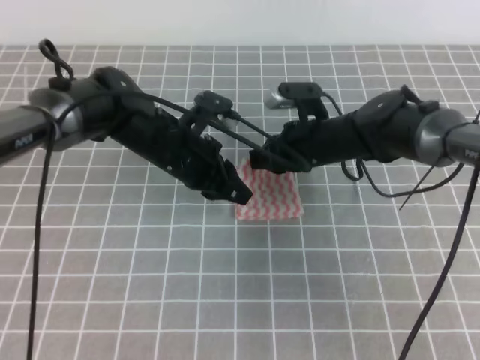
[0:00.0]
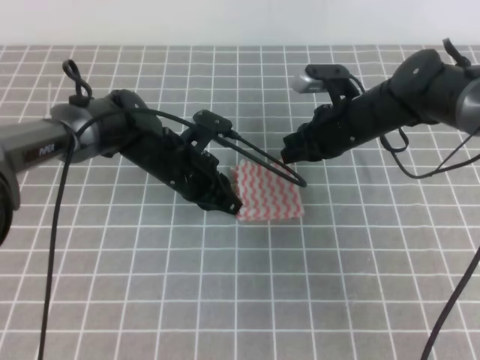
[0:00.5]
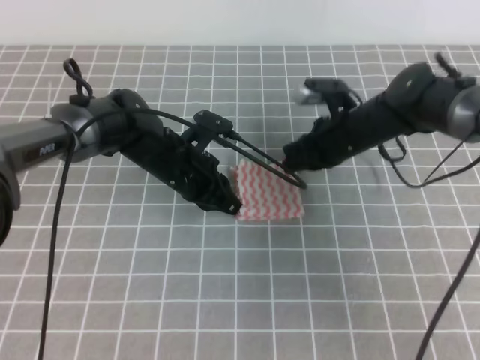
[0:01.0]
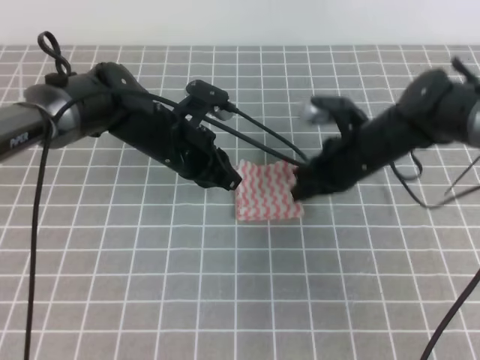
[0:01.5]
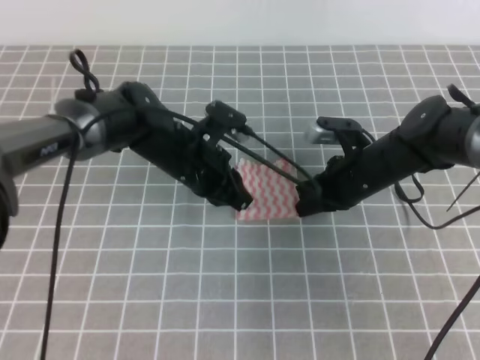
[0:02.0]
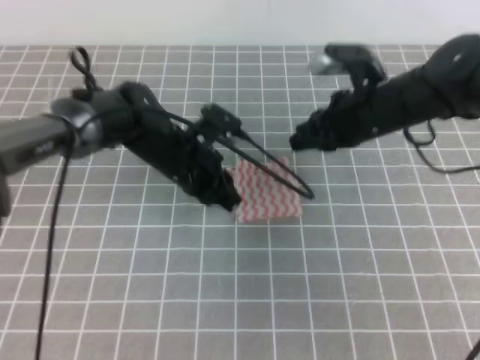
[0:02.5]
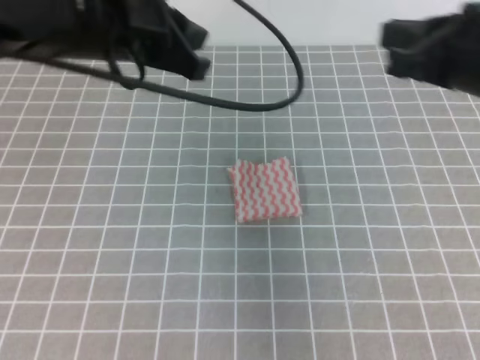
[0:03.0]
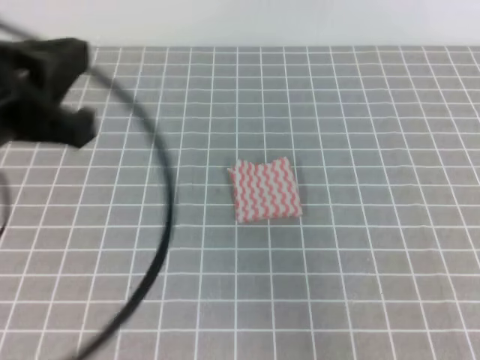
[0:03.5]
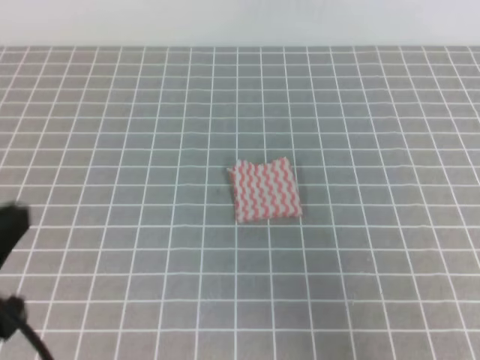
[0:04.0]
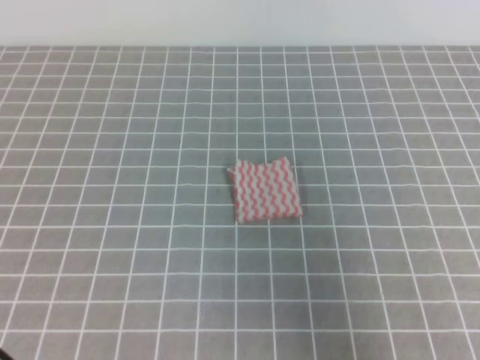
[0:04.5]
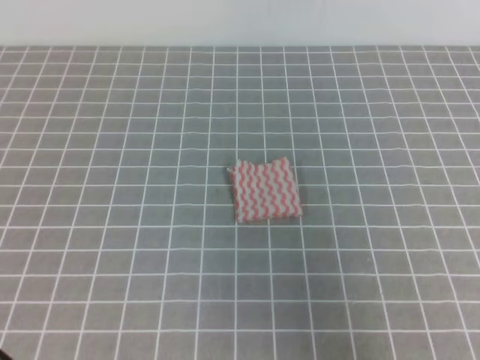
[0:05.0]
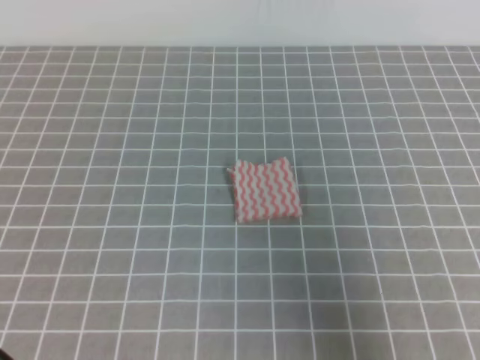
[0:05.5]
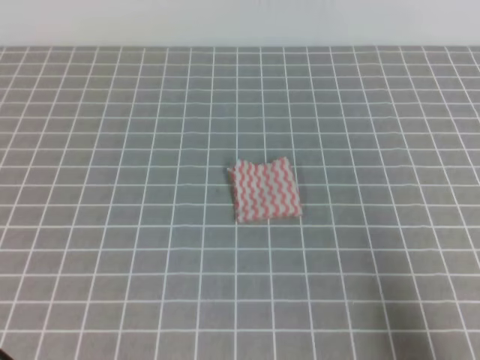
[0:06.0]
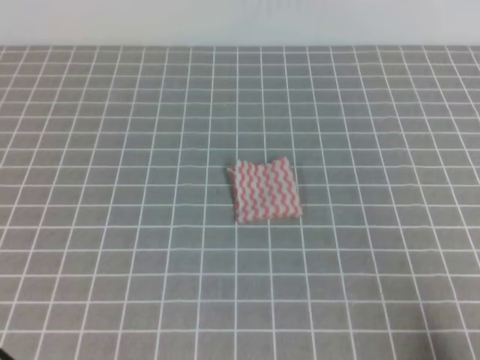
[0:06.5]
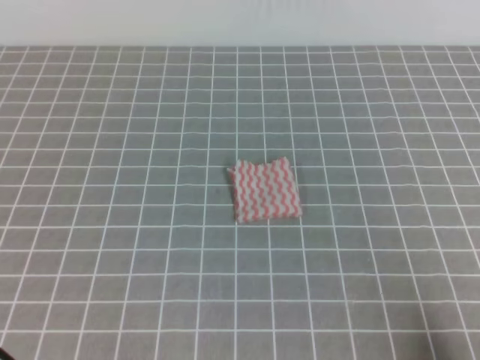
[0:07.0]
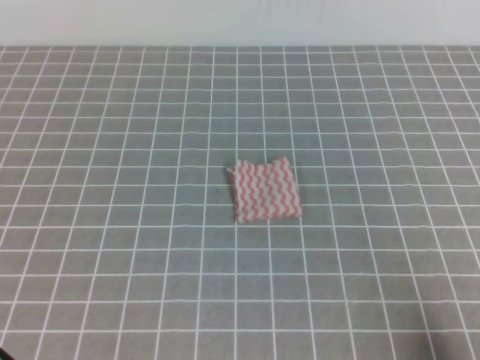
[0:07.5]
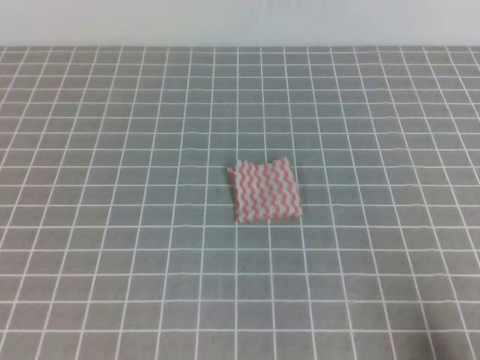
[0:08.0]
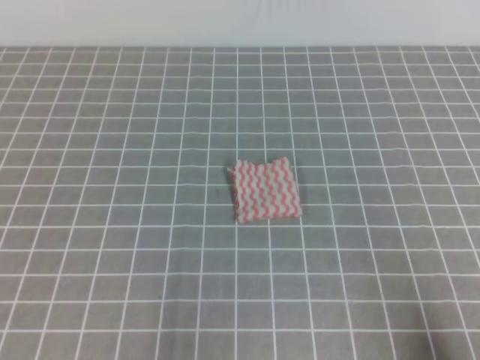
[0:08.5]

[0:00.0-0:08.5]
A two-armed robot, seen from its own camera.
Step, 0:00.0 to 0:08.5: Fold the towel.
0:00.0 to 0:02.0: The right gripper changes place by approximately 5 cm.
0:02.0 to 0:04.0: The right gripper travels backward, upward and to the right by approximately 35 cm. The left gripper is displaced backward, to the left and upward by roughly 35 cm.
0:04.0 to 0:06.5: The left gripper changes place by roughly 5 cm; the right gripper is displaced downward by about 15 cm.

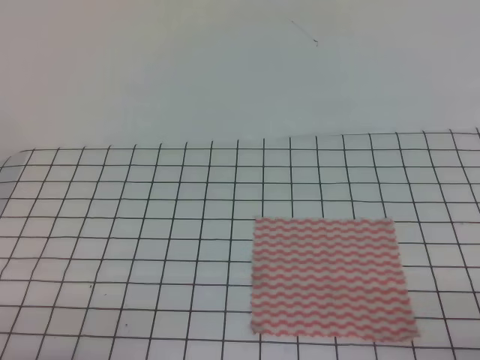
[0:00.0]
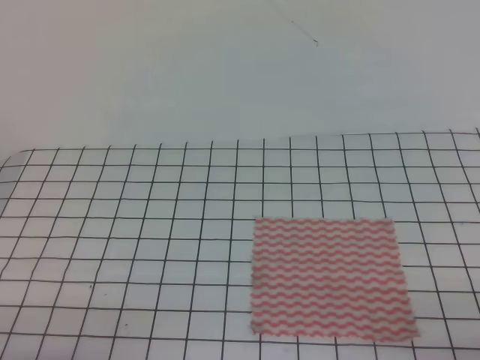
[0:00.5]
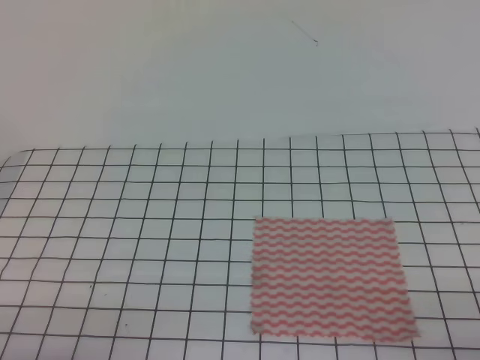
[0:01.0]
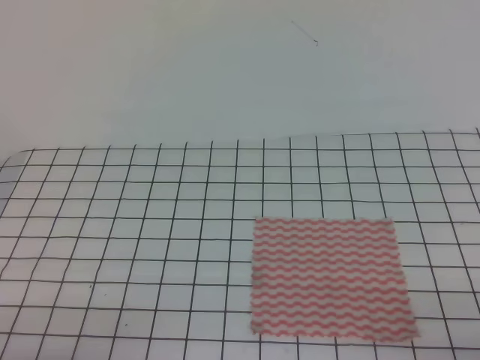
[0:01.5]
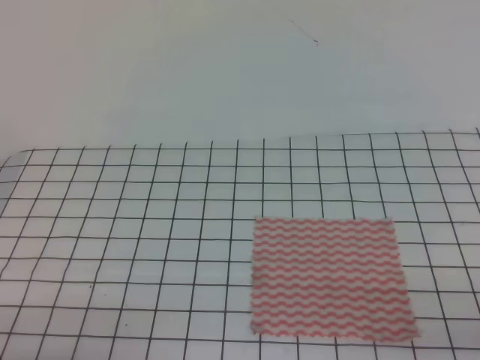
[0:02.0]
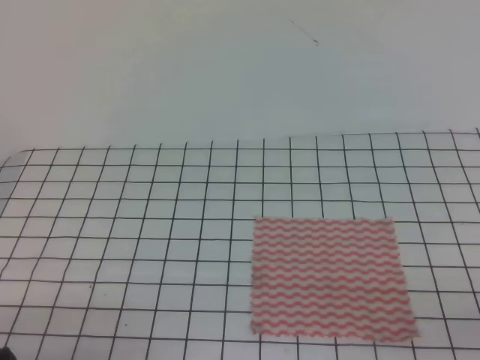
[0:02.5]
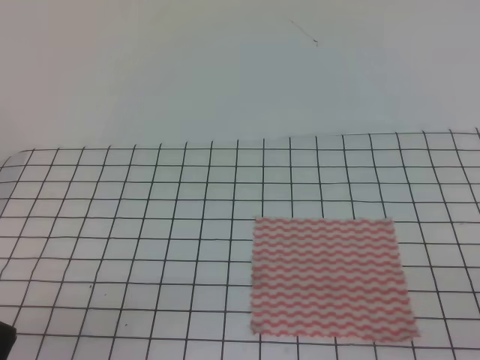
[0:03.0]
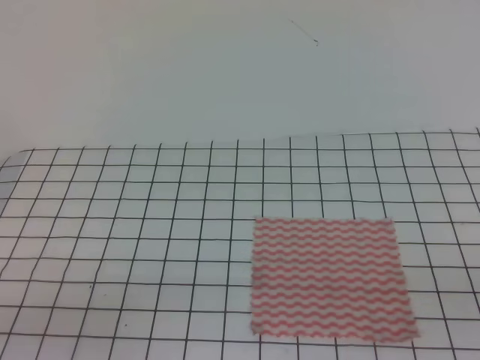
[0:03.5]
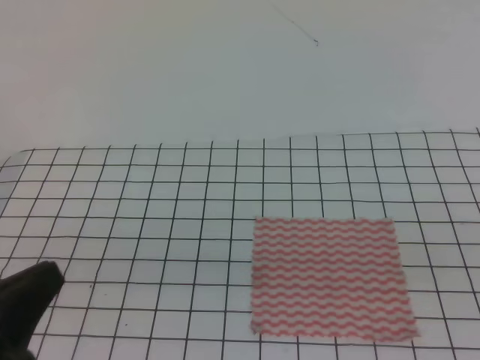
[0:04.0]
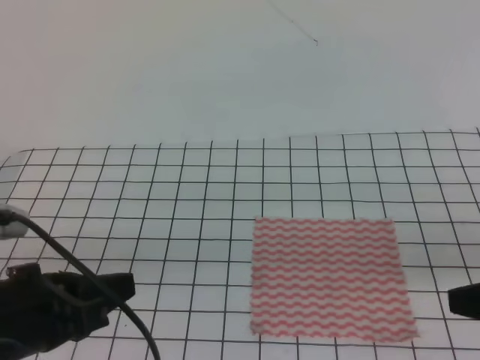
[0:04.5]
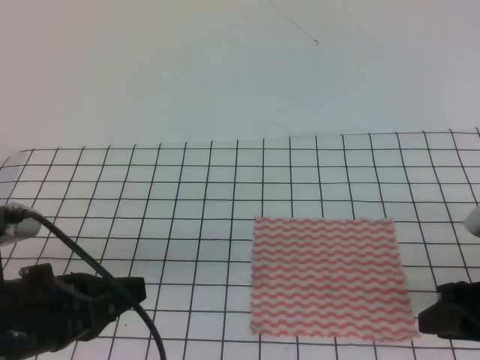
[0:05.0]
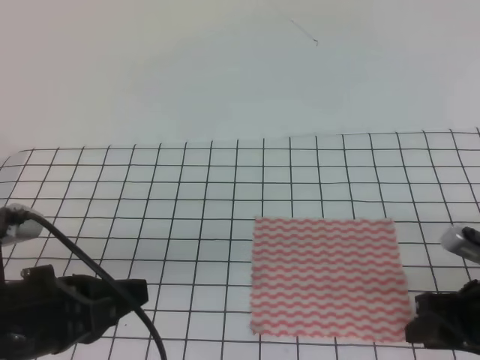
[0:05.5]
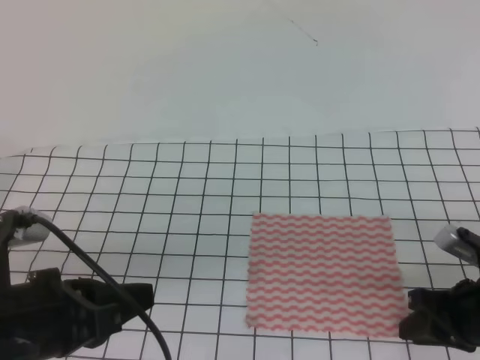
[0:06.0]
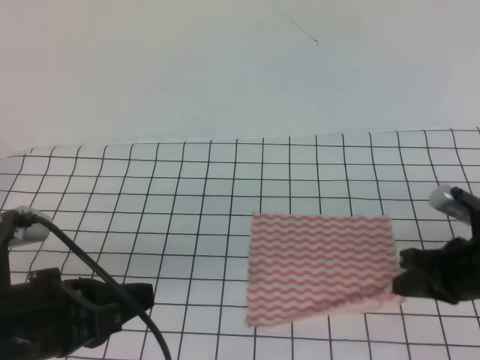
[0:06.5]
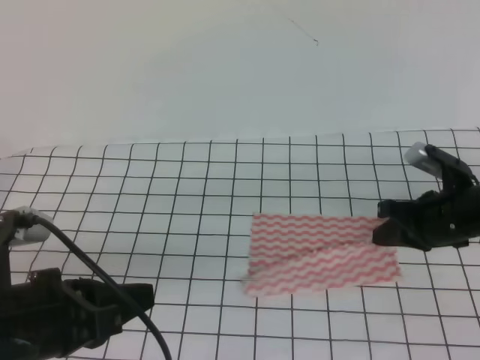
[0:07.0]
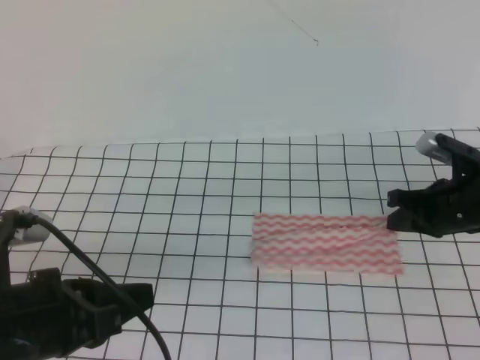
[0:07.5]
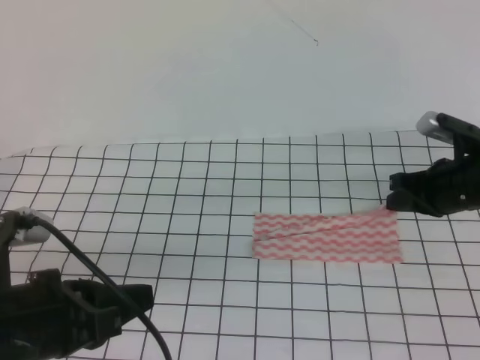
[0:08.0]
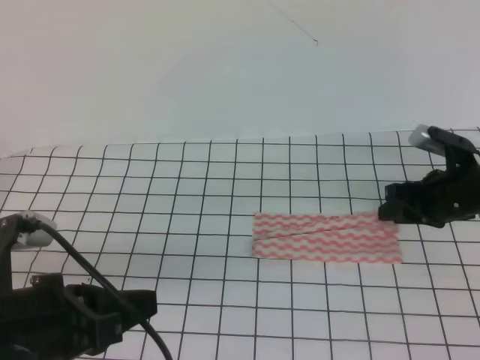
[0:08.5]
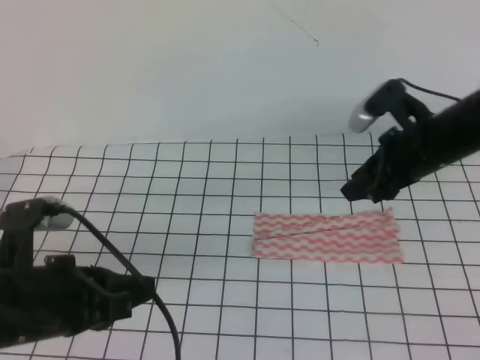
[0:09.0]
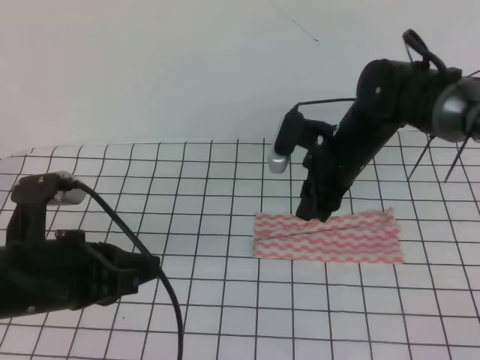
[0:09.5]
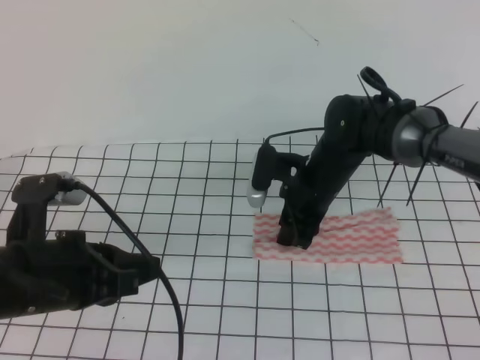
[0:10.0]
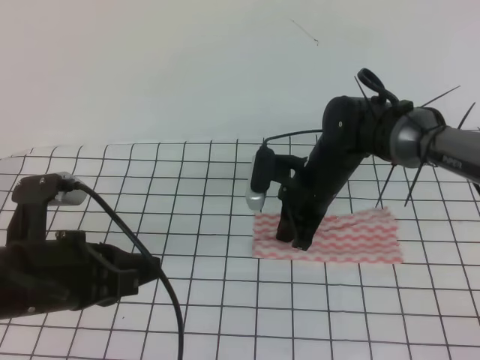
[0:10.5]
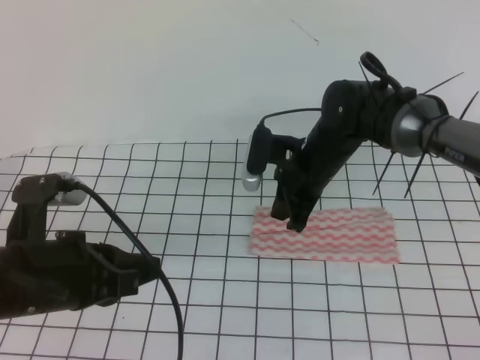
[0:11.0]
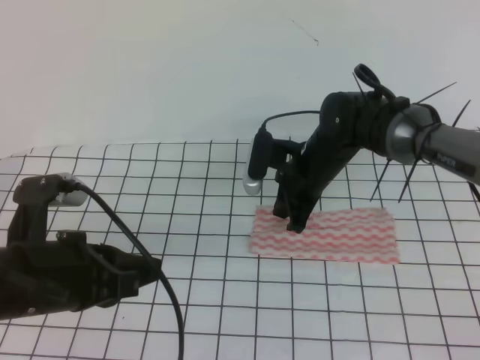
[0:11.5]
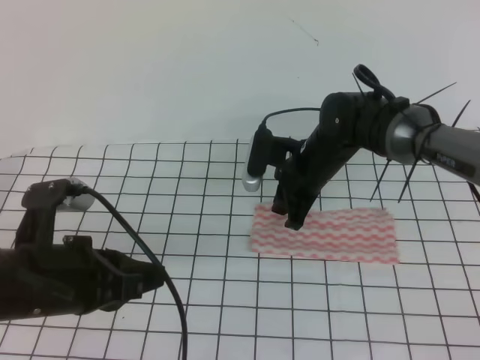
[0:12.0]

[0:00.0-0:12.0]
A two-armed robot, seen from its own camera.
Step, 0:00.0 to 0:07.0: Fold the towel upwards with the right gripper.
Step, 0:07.5 to 0:11.5: Fold the towel from right to left with the right gripper.
0:02.0 to 0:04.0: The left gripper shifts some 10 cm upward.
0:04.0 to 0:06.0: The left gripper moves forward, about 10 cm. The right gripper shifts some 20 cm forward and downward, and opens up.
0:06.0 to 0:08.0: The right gripper is displaced forward by about 15 cm, and closes up.
0:08.0 to 0:10.0: The right gripper moves to the left, some 15 cm, and opens up.
0:10.0 to 0:12.0: The right gripper closes.

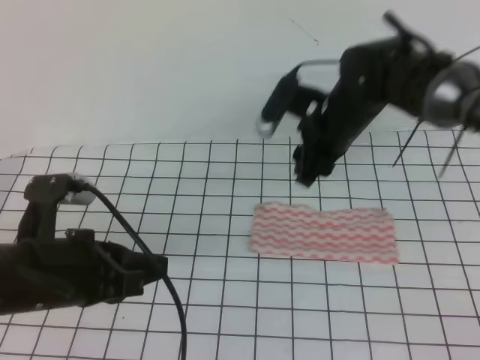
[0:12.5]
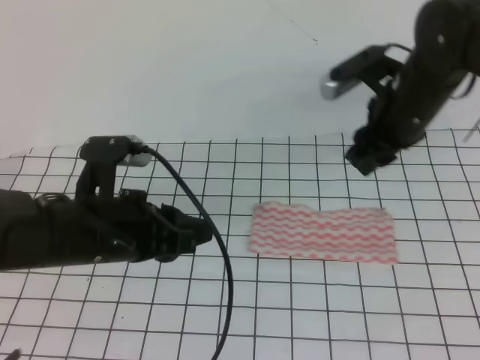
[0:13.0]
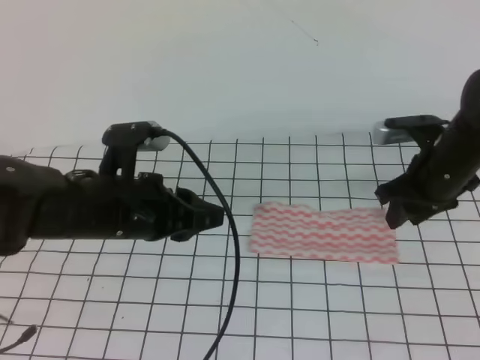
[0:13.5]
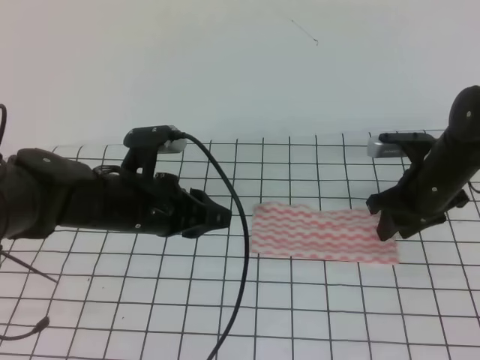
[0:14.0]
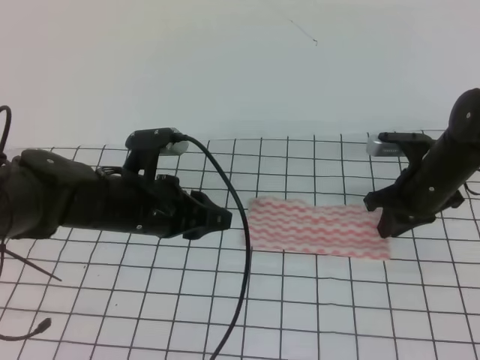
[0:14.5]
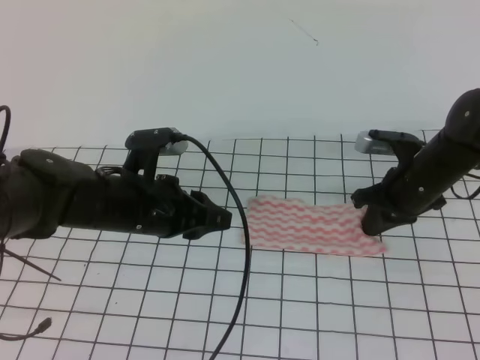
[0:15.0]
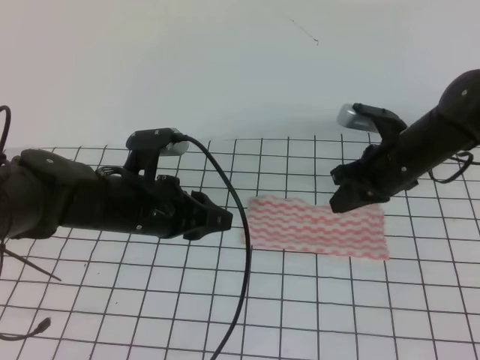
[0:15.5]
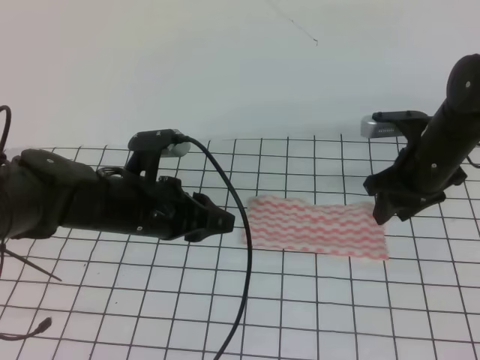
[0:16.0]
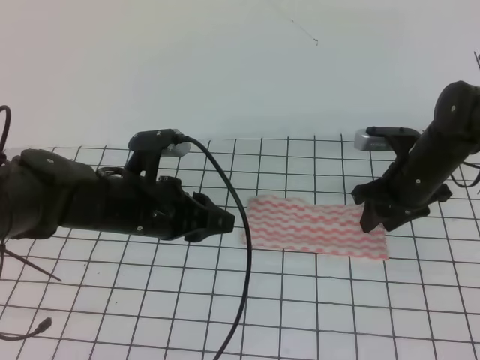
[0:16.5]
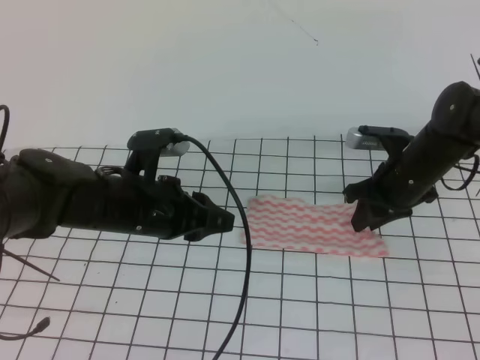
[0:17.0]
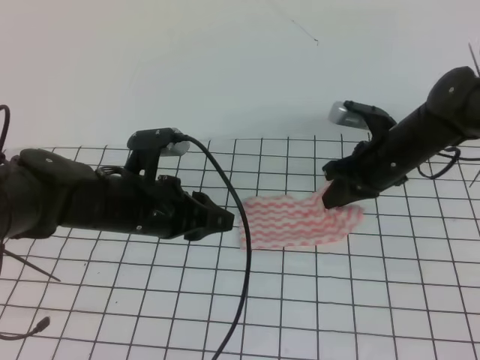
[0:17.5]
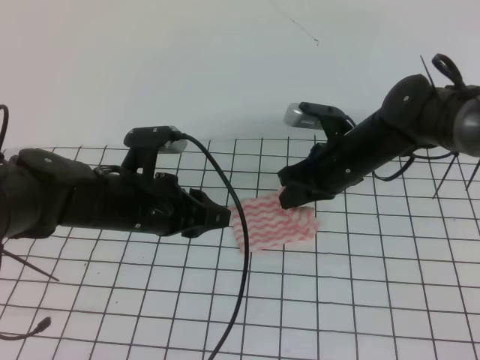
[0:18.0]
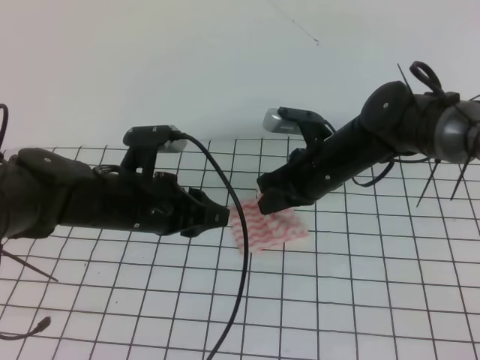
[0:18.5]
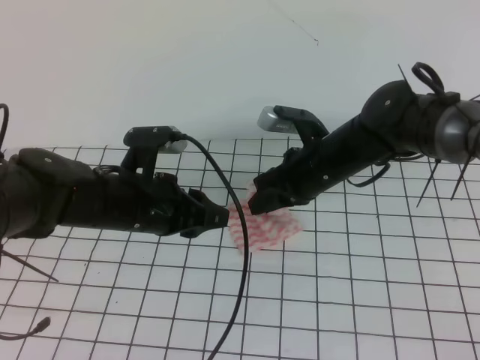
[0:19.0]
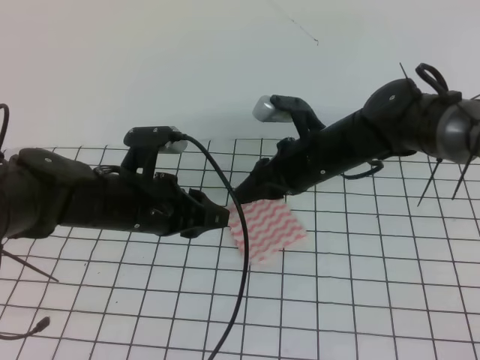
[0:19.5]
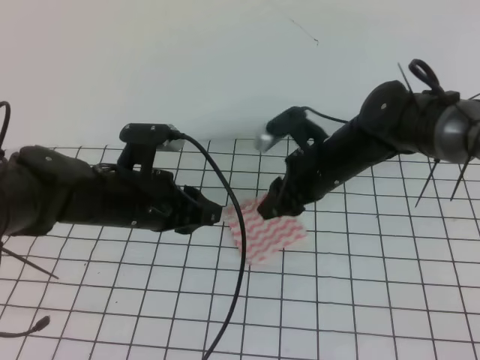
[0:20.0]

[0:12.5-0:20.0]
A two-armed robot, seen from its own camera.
Step, 0:12.5 to 0:17.5: Tidy up the towels.
0:12.5 to 0:14.5: The right gripper goes approximately 15 cm to the right and downward, and closes up; the left gripper shifts some 10 cm forward and to the right, and opens its fingers.
0:14.5 to 0:16.5: The right gripper opens.
0:16.5 to 0:18.0: The right gripper moves to the left, approximately 10 cm, and closes.
0:18.0 to 0:20.0: The right gripper opens its fingers.
